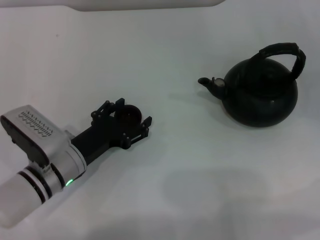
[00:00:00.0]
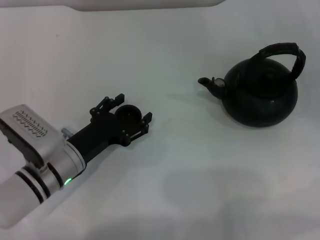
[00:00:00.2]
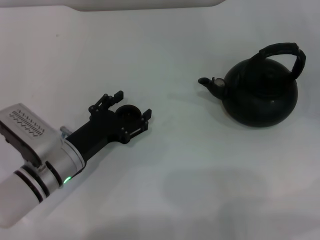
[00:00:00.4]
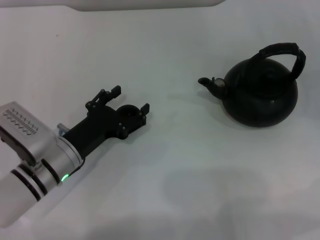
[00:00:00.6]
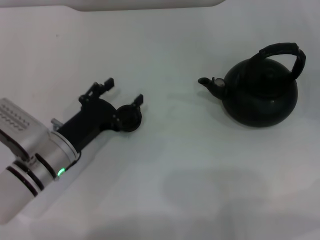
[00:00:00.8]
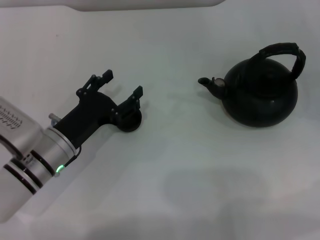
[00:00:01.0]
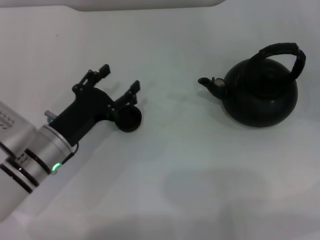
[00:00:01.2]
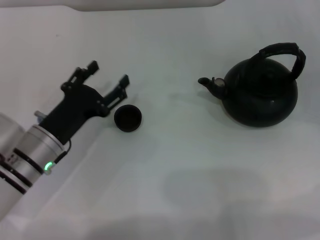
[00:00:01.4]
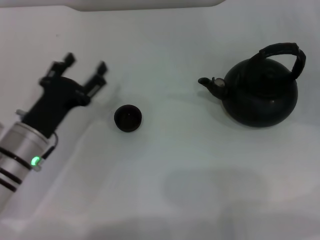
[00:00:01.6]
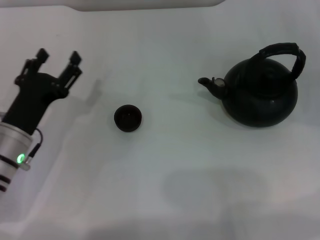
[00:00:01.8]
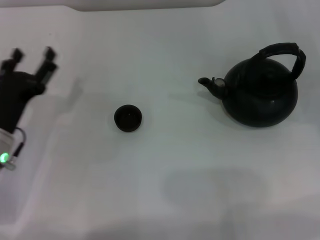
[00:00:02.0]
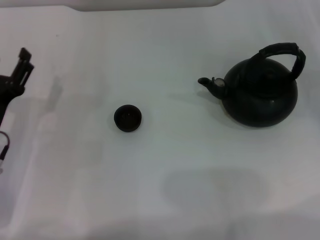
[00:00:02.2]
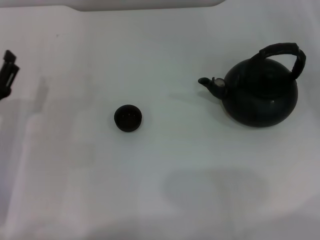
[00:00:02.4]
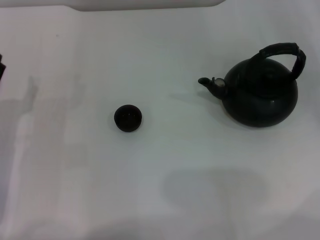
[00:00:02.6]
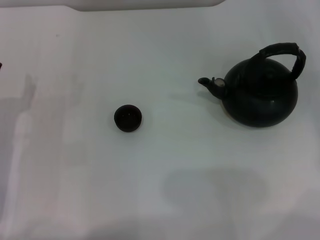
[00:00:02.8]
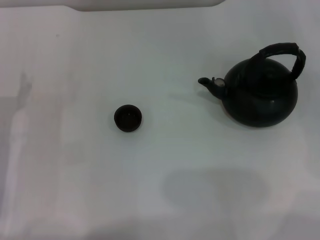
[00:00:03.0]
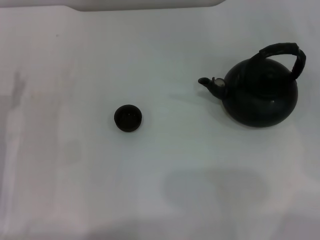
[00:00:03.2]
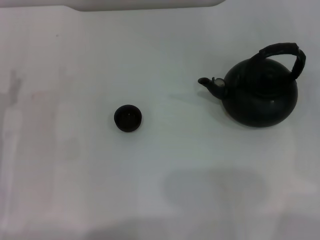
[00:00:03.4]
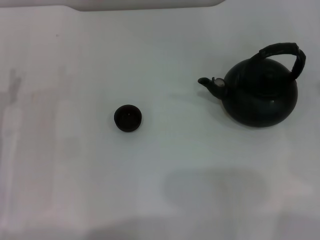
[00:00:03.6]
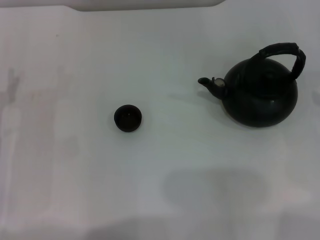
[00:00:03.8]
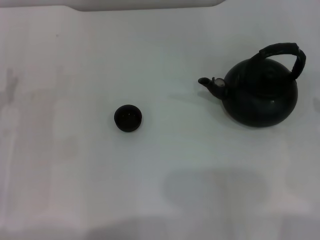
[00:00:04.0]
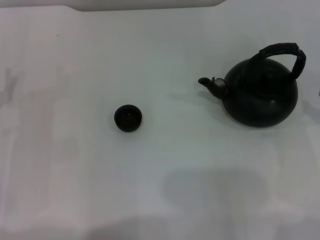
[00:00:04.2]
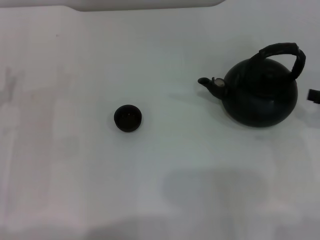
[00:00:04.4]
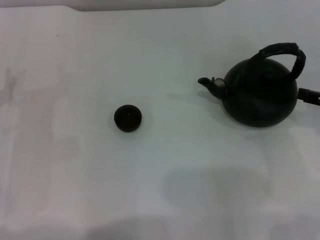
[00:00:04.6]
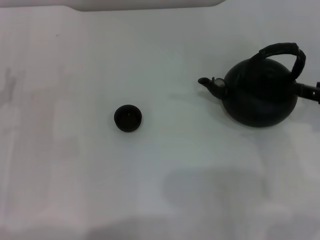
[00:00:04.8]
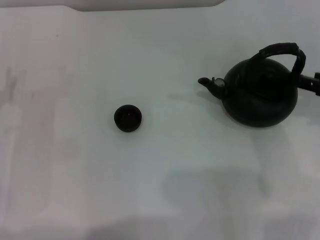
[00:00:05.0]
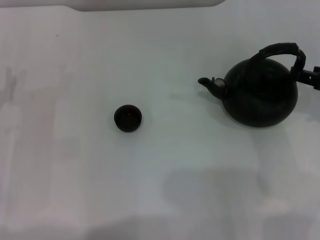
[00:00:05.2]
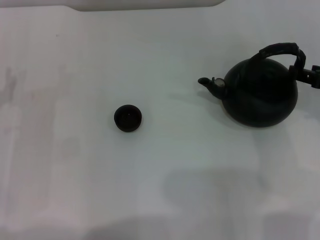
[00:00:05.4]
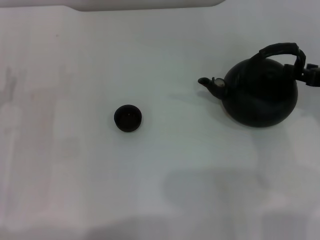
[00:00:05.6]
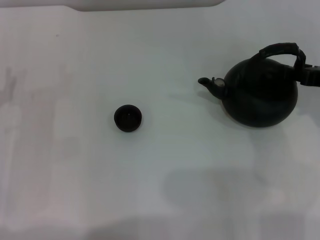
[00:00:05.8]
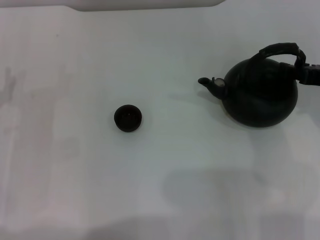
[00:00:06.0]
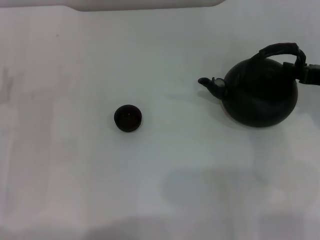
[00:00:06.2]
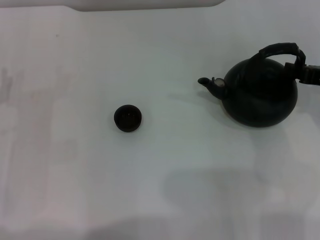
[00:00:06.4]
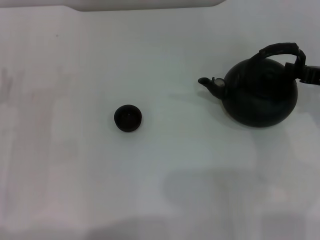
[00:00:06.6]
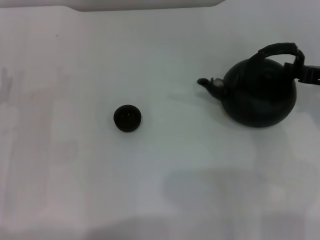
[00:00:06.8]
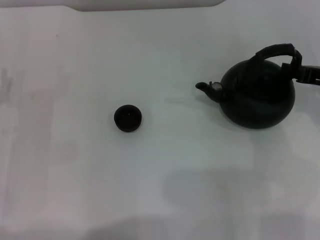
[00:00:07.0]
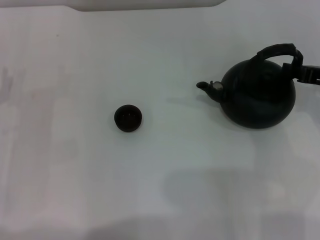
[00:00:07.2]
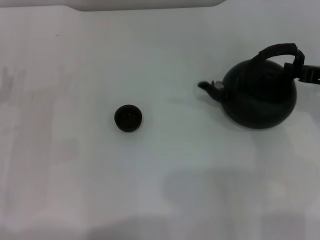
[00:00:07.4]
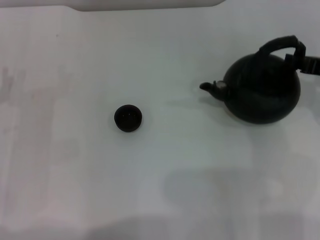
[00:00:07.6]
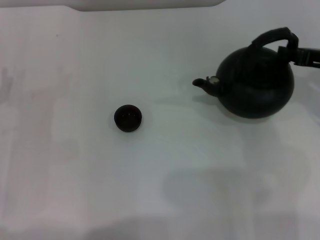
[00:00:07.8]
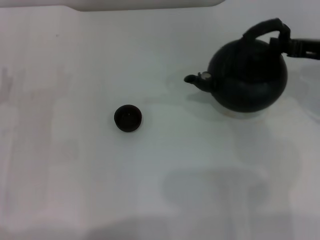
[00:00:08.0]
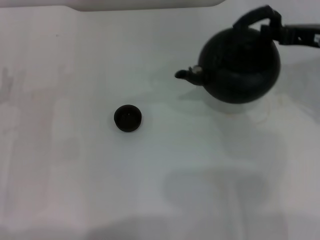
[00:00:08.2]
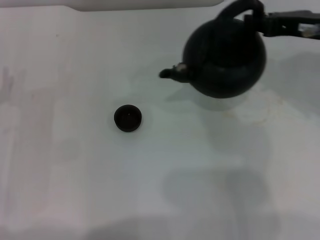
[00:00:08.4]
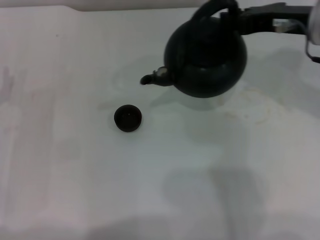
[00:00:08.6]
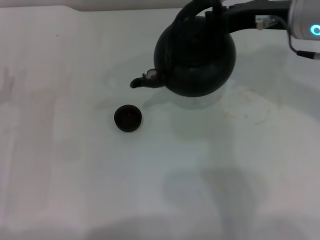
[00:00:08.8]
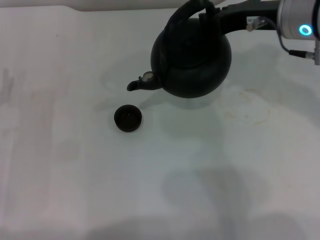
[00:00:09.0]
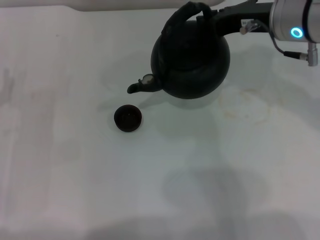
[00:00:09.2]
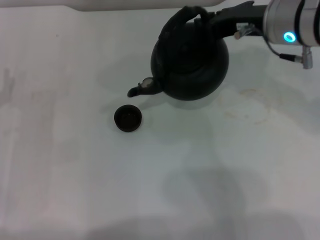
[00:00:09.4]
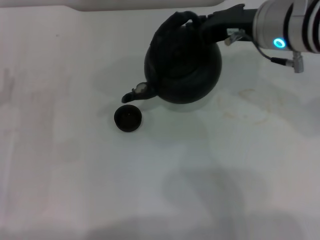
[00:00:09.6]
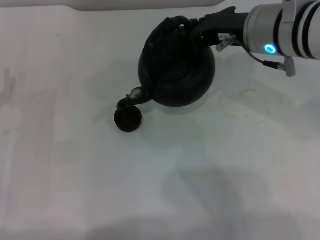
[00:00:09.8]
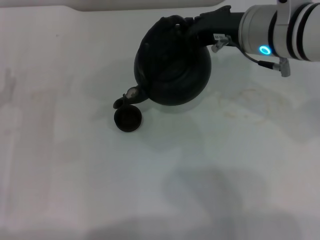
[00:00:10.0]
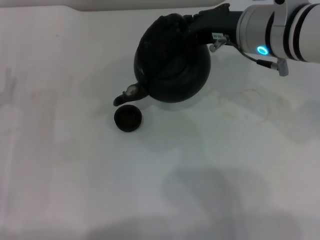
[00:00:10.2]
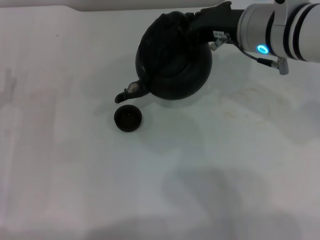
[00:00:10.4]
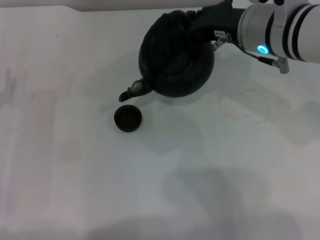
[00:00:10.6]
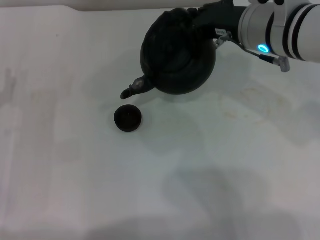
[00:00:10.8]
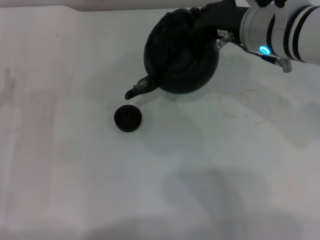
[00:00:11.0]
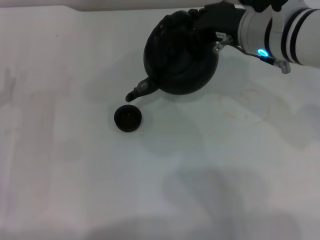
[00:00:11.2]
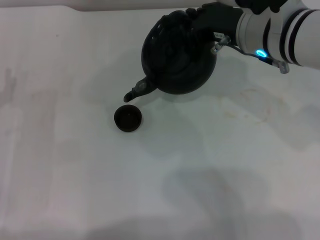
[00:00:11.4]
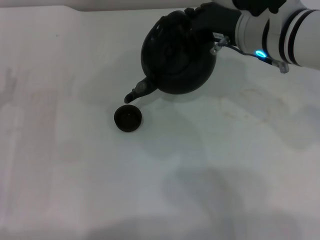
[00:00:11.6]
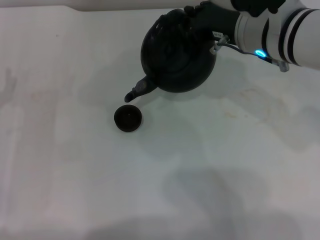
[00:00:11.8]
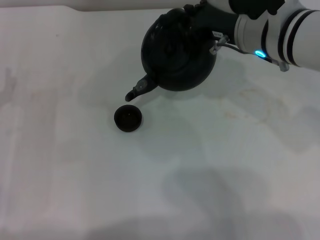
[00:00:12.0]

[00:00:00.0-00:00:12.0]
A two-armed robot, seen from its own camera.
Task of the whole recording: Grasp the handle of the teapot with one hand and pour tea into the teacup.
Step, 00:00:00.4 to 00:00:07.8: Pick up the teapot with the right gripper.
00:00:01.6 to 00:00:03.0: The left gripper heads to the left, covering about 10 cm.
00:00:04.4 to 00:00:06.0: The right gripper changes place by approximately 5 cm.
00:00:06.0 to 00:00:07.6: The right gripper closes its fingers.
00:00:07.6 to 00:00:09.0: The right gripper shifts about 15 cm to the left, upward and forward.
00:00:09.0 to 00:00:10.4: The grippers make only small movements.
00:00:10.4 to 00:00:12.0: The grippers make only small movements.

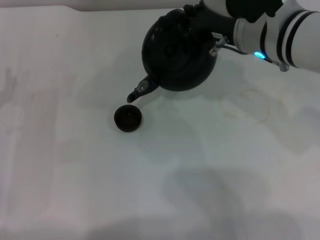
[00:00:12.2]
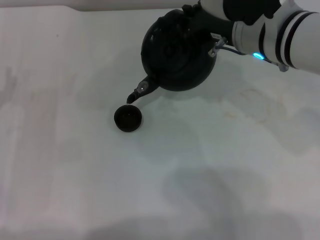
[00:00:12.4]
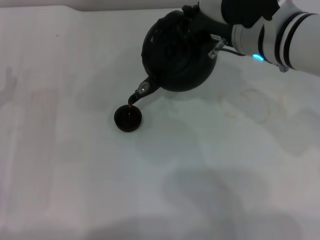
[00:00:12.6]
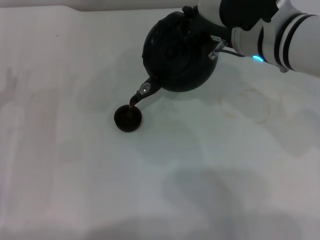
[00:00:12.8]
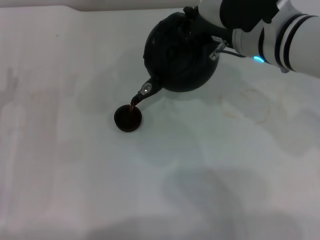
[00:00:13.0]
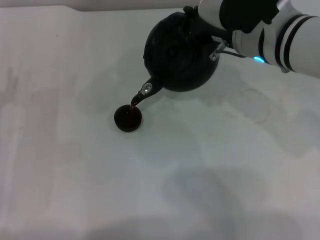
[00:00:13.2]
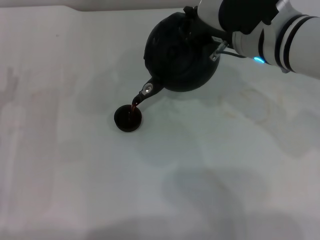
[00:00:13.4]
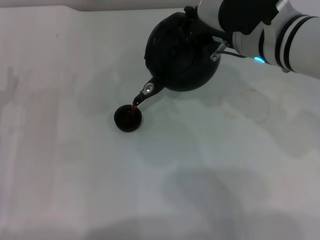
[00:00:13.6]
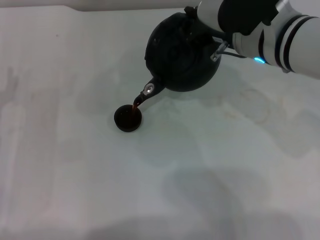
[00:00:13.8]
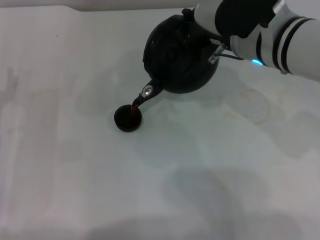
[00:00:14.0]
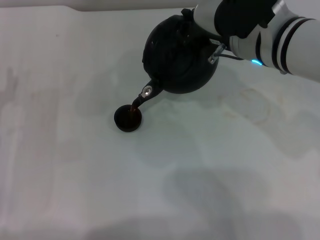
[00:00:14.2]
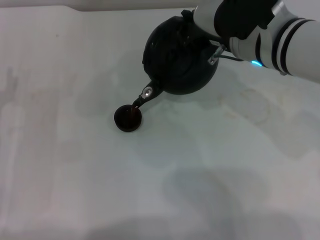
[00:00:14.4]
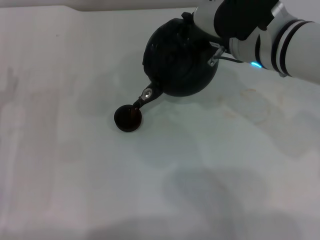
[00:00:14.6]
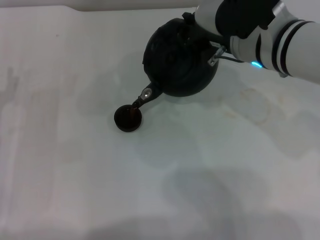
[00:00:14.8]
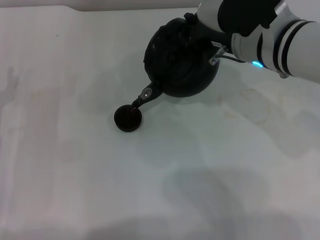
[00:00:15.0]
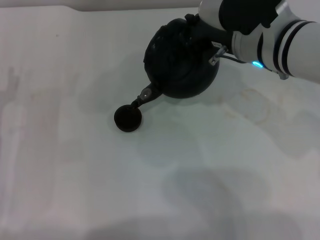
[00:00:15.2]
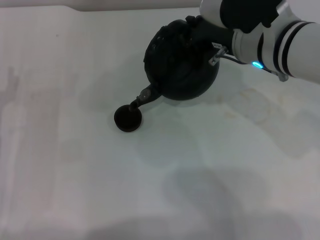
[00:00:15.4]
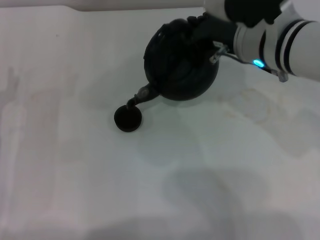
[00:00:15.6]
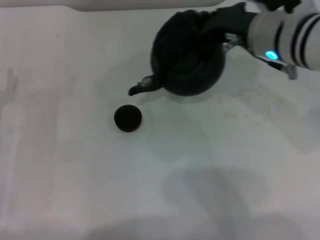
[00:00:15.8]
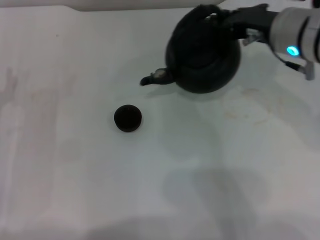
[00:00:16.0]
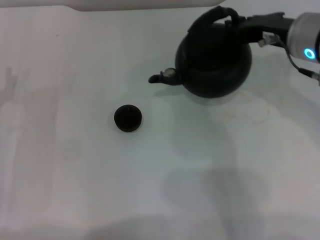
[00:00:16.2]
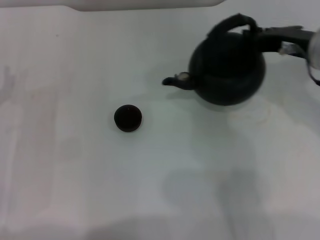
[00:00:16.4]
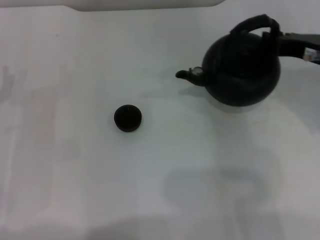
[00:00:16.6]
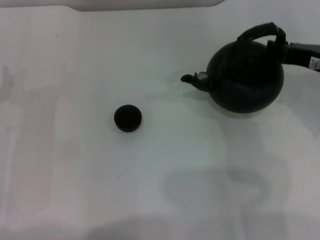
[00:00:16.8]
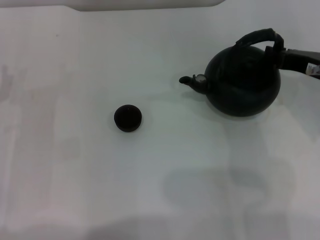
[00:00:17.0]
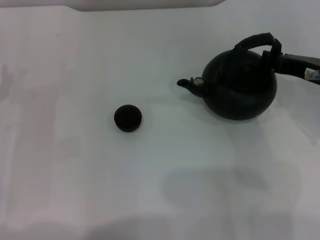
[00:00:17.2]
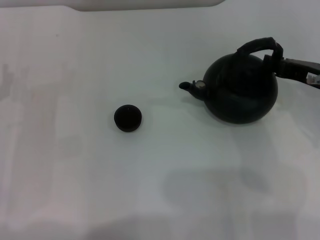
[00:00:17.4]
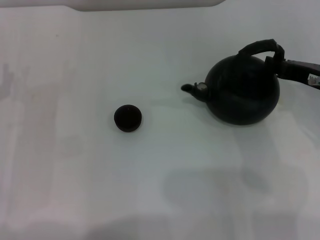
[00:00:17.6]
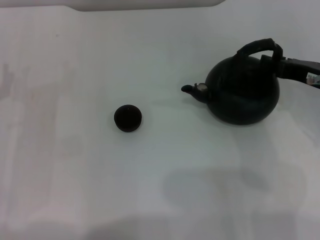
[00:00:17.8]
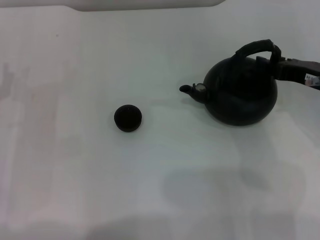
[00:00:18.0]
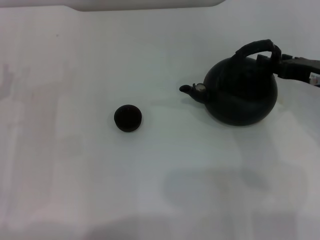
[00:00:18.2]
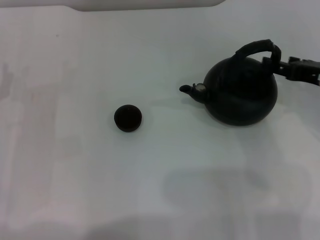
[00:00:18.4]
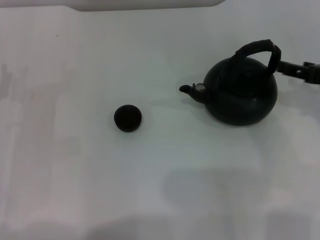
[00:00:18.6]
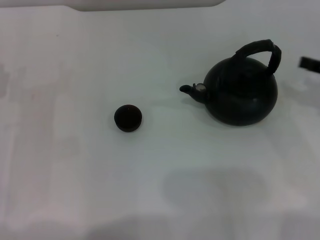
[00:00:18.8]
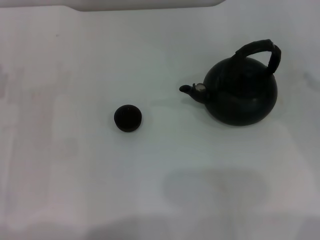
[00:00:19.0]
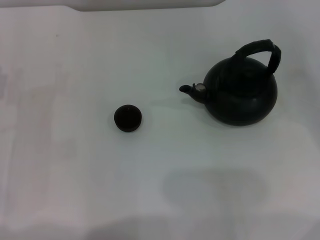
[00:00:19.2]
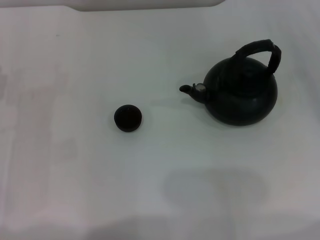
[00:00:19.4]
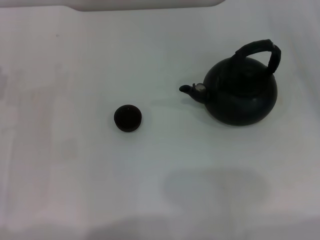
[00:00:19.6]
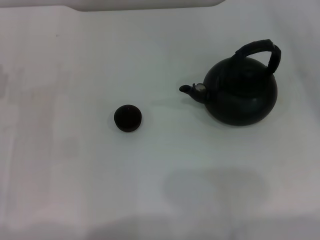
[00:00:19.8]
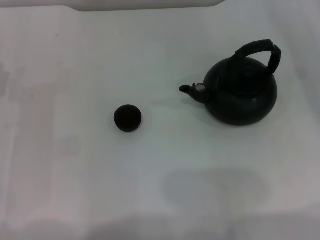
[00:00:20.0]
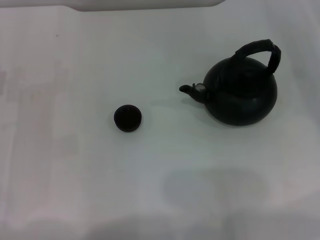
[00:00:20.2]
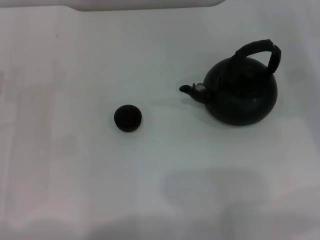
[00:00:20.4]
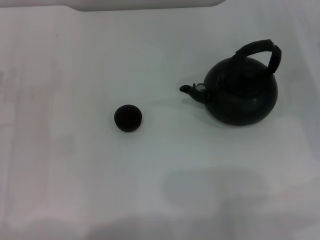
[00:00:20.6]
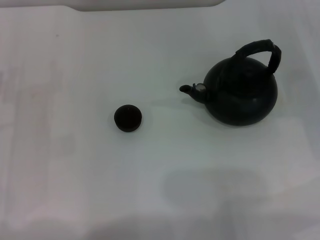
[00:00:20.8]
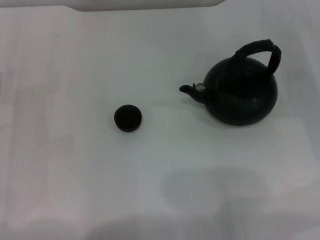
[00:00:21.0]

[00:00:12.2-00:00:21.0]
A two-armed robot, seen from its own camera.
Task of the whole recording: Grasp the handle of the teapot with one hand and pour tea into the teacup.
Step, 00:00:12.2 to 00:00:16.0: Pour tea into the teacup with the right gripper.
Step, 00:00:16.2 to 00:00:18.8: Put down the teapot with the right gripper.
00:00:12.2 to 00:00:13.6: There are only small adjustments of the grippers.
00:00:13.6 to 00:00:15.2: Neither gripper changes place.
00:00:15.2 to 00:00:16.6: The right gripper heads to the right, covering approximately 15 cm.
00:00:16.6 to 00:00:18.0: The grippers move only a little.
00:00:18.0 to 00:00:19.6: The right gripper goes approximately 15 cm to the right, and opens.
